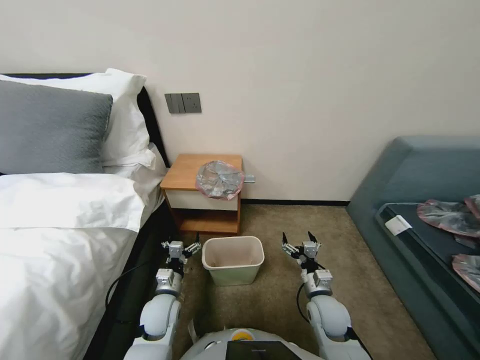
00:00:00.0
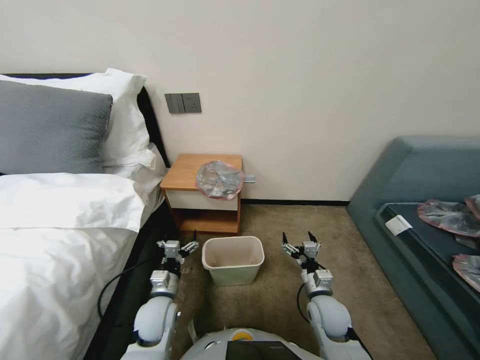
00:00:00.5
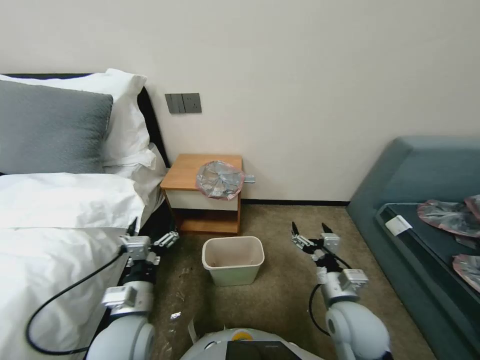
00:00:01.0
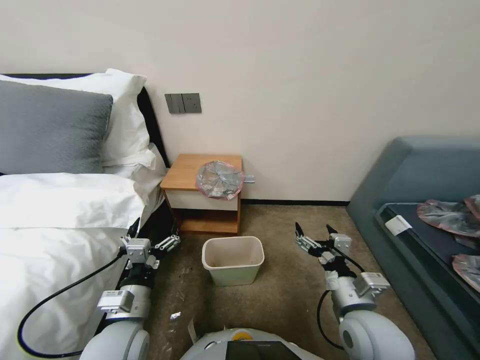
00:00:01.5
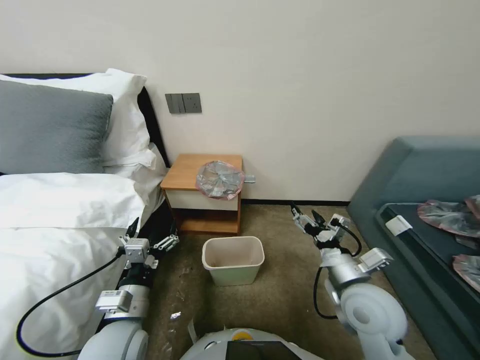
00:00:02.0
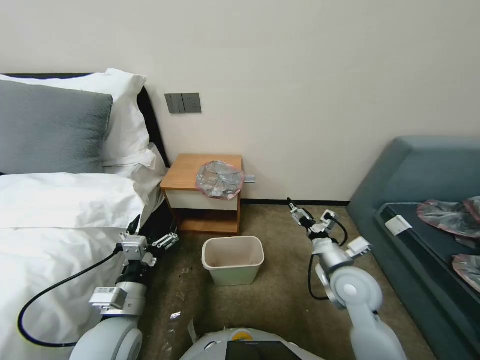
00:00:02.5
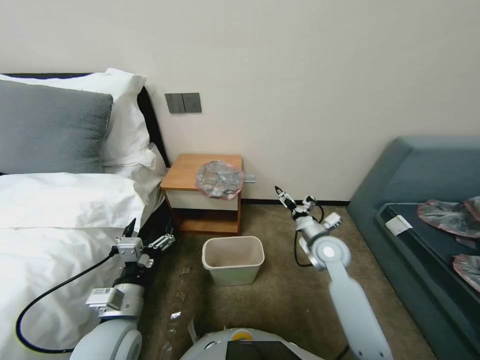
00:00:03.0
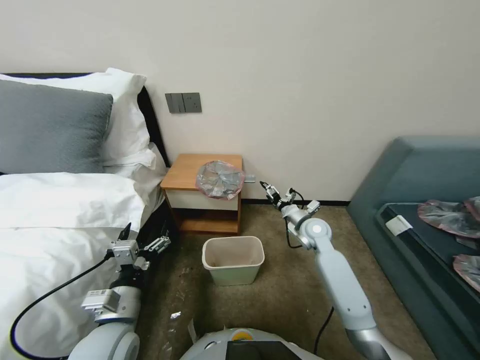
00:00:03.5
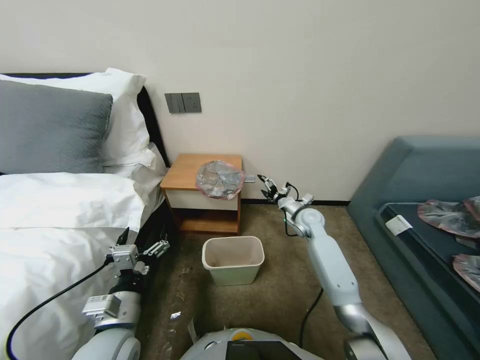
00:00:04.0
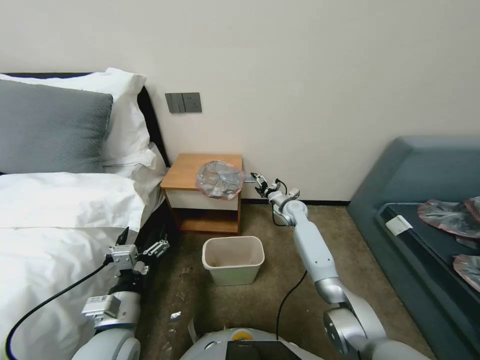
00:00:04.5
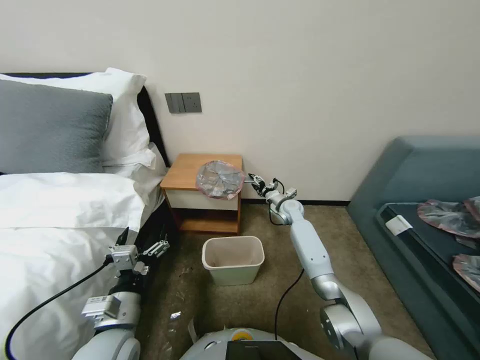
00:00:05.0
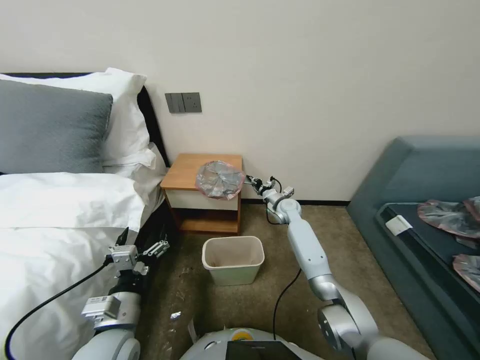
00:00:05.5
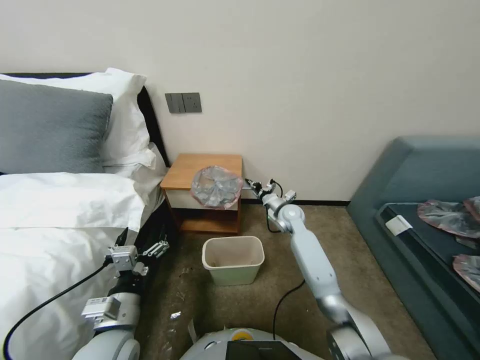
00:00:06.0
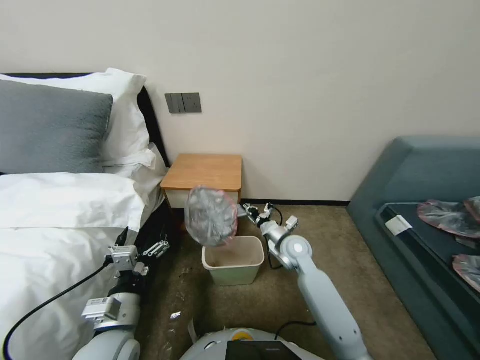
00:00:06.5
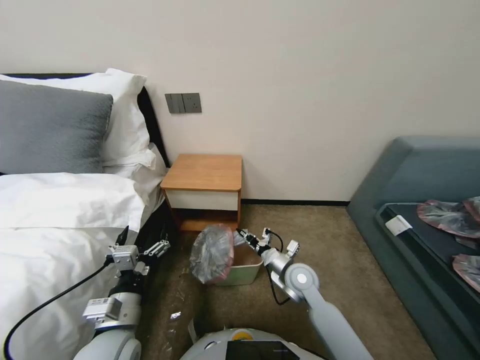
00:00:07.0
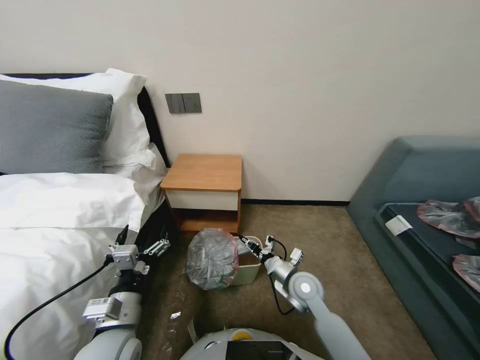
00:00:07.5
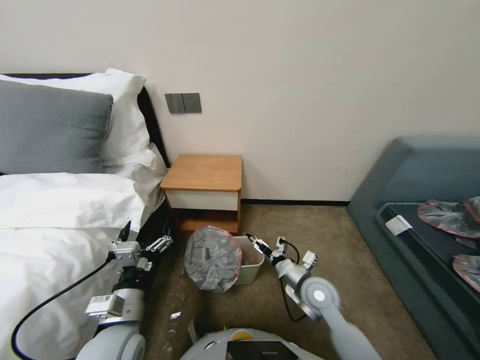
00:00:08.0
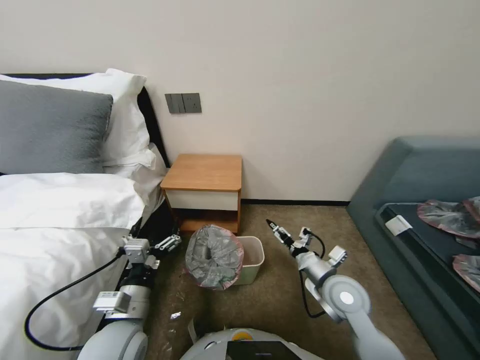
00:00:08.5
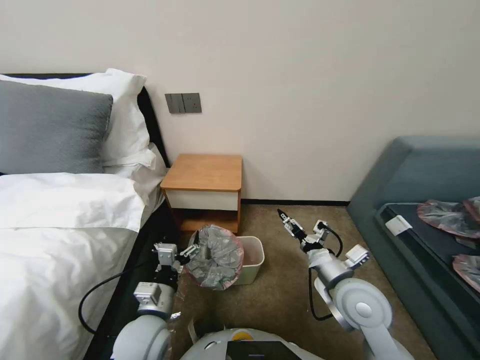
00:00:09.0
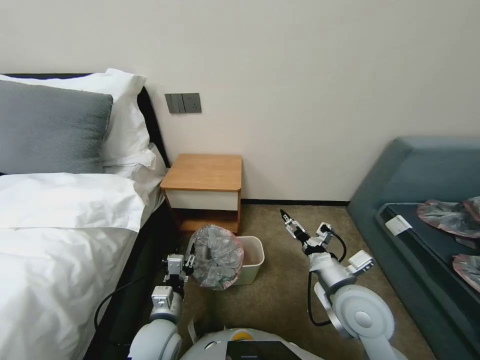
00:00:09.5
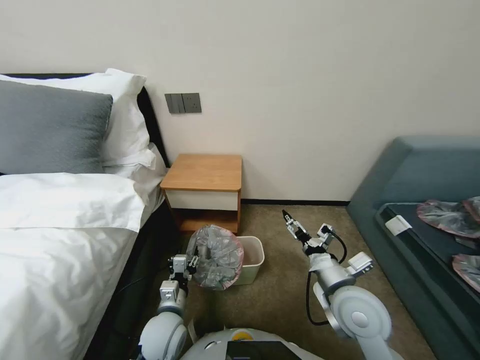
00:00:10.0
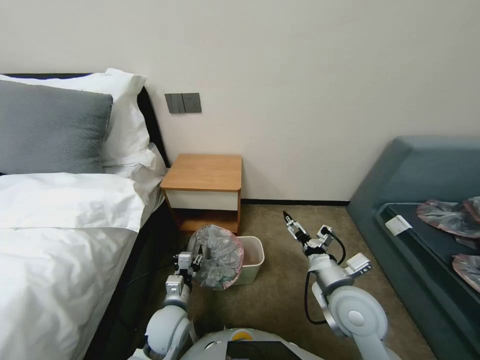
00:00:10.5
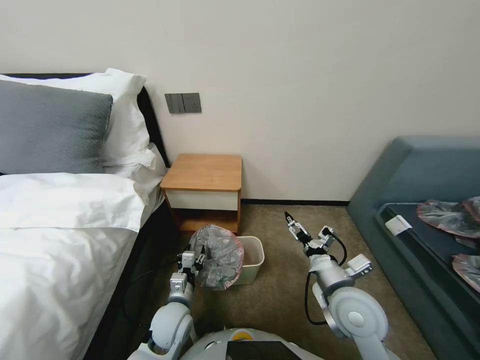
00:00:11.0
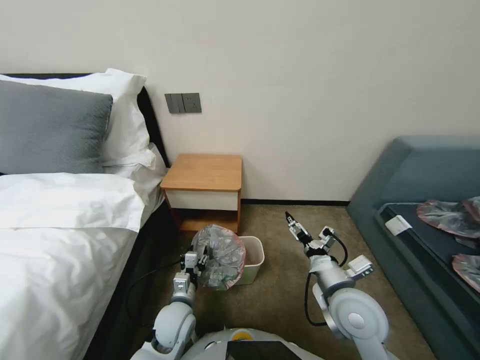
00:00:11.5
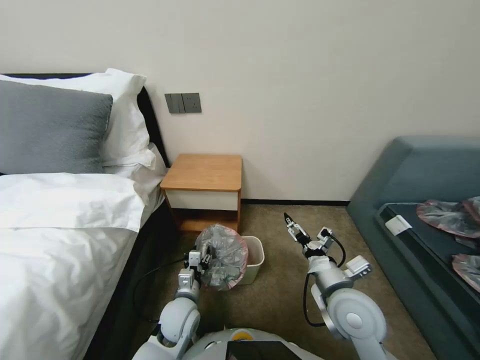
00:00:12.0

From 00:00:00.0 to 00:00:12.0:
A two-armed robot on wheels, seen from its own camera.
Task of the whole recording: Pick up the garbage bag from the table and place it over the trash can.
From 00:00:02.0 to 00:00:04.0: The right gripper shifts approximately 30 cm forward.
From 00:00:04.0 to 00:00:06.0: The right gripper moves to the left, roughly 5 cm, and closes.
From 00:00:06.0 to 00:00:08.0: The right gripper travels backward by about 25 cm, and opens up.
From 00:00:08.0 to 00:00:10.0: The left gripper travels downward and to the right by about 10 cm, and closes, while the right gripper is displaced upward and backward by roughly 10 cm.
From 00:00:10.0 to 00:00:12.0: The left gripper shifts by about 5 cm.

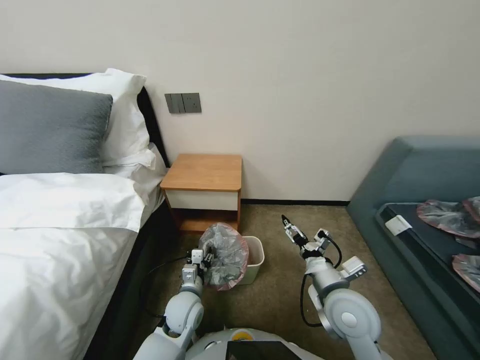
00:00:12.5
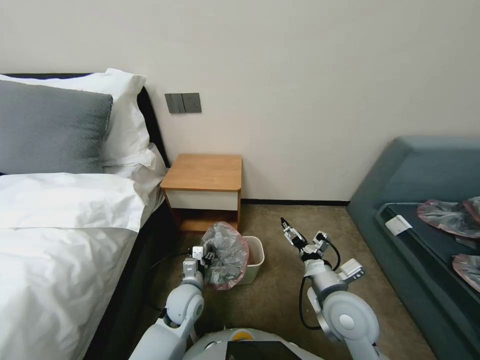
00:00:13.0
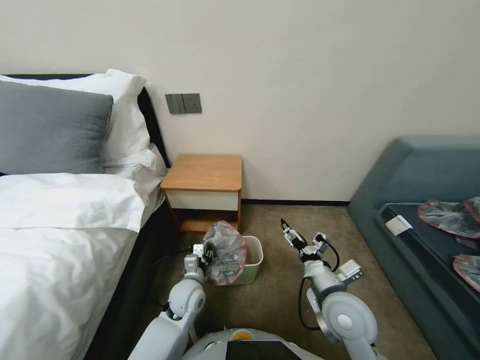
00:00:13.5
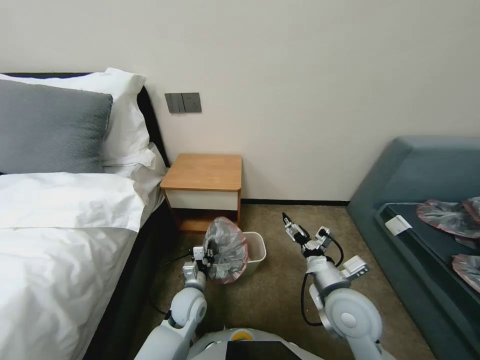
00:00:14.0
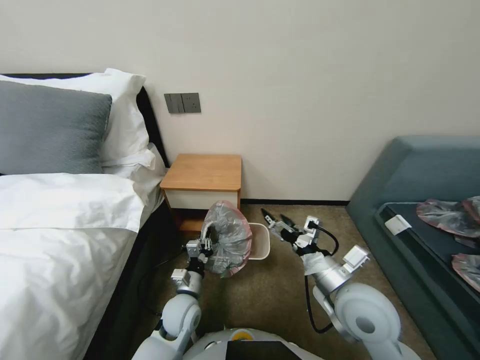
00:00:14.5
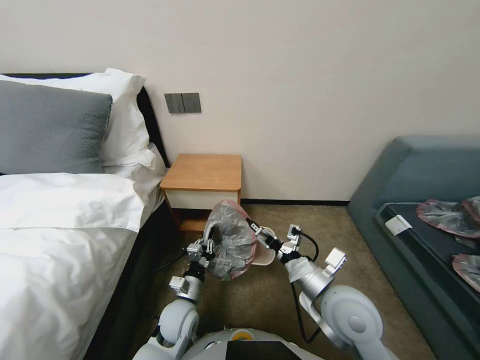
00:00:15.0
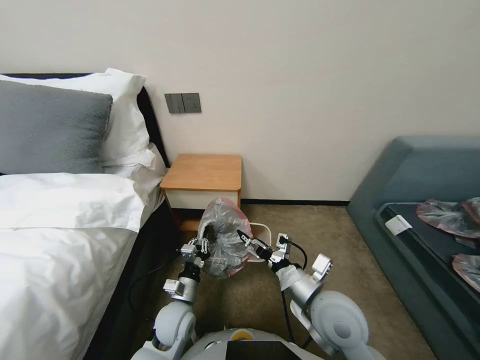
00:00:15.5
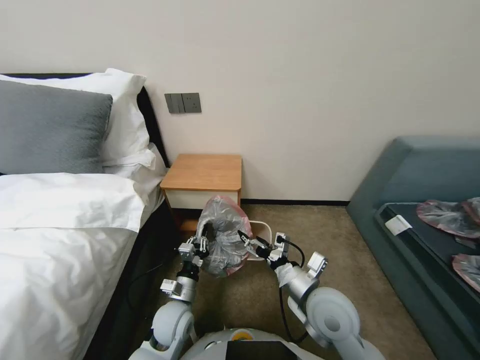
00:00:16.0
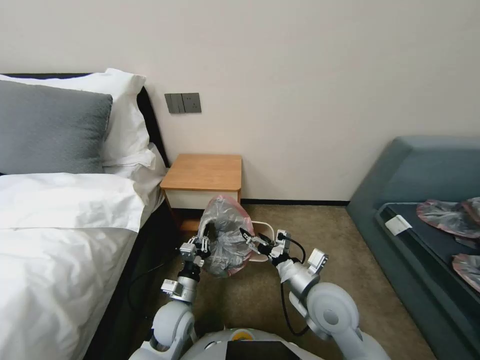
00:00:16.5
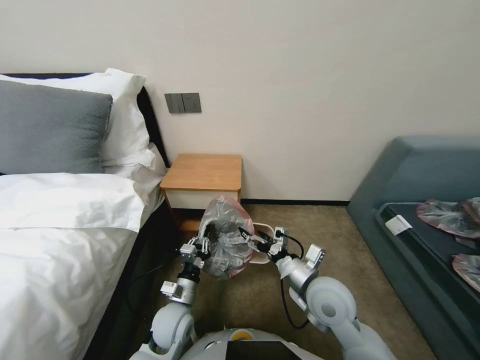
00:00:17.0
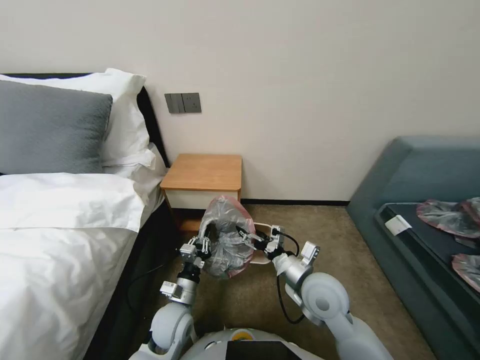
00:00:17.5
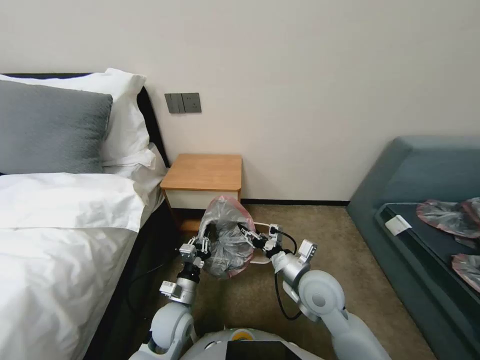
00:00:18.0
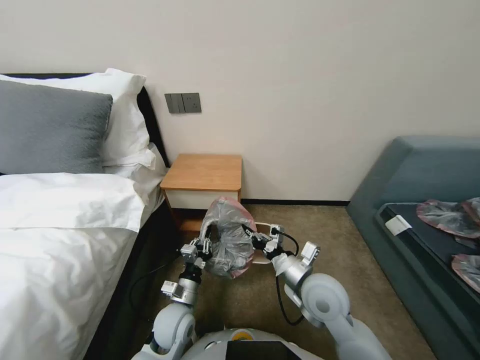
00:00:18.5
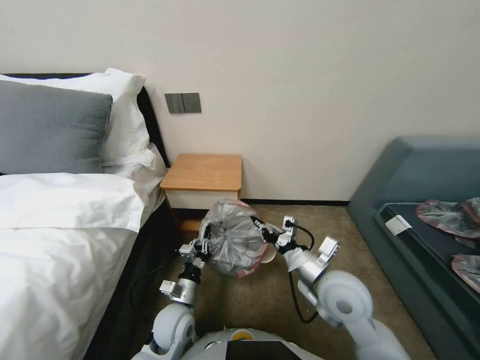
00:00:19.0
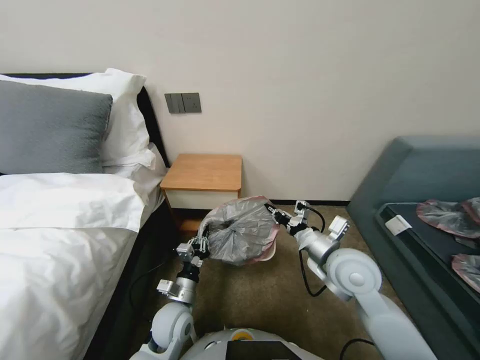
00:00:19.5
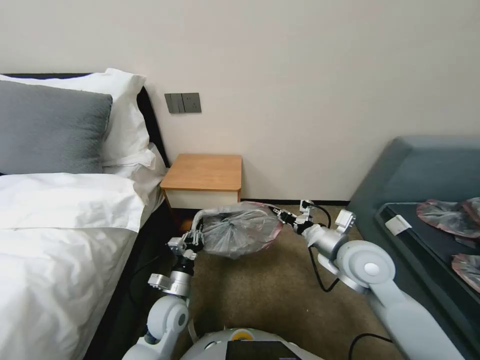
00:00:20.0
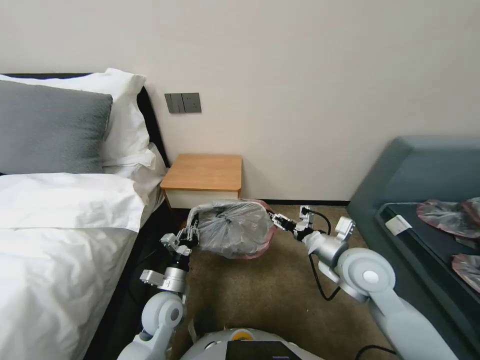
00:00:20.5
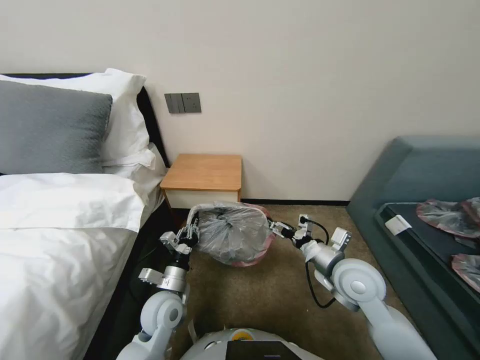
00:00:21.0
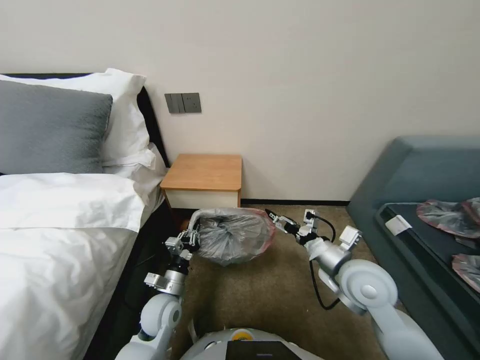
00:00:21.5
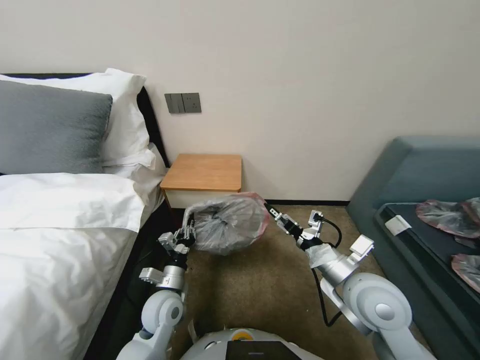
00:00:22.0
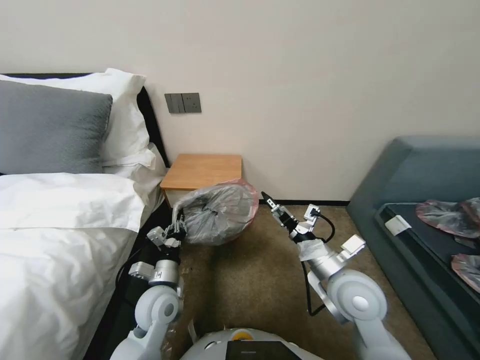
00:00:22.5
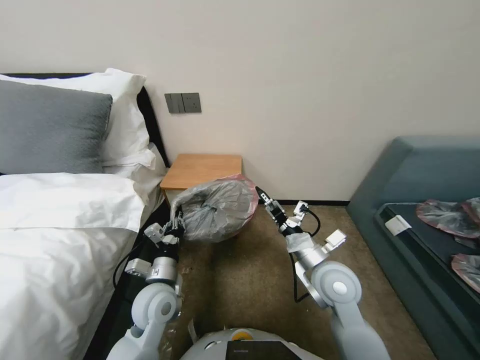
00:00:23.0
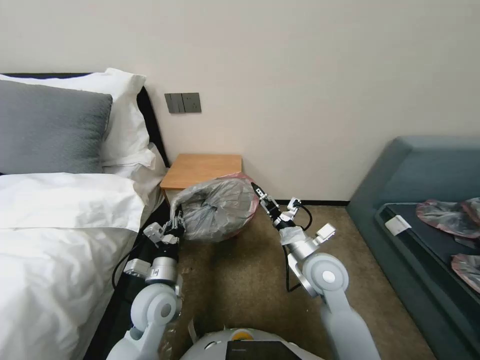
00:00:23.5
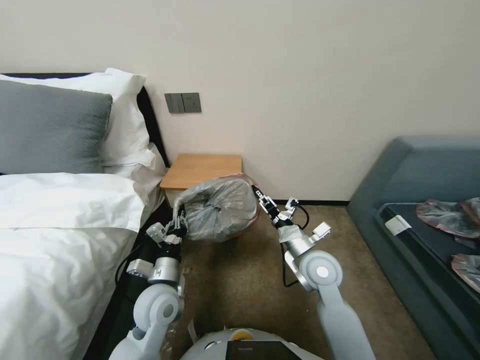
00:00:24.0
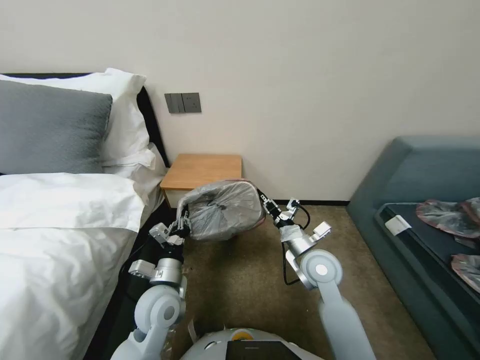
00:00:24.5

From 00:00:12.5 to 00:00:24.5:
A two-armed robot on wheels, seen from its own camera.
Task of the whole recording: Pick up the garbage bag from the table and place it over the trash can.
From 00:00:12.5 to 00:00:14.5: The left gripper closes.
From 00:00:14.5 to 00:00:16.5: The right gripper shifts by about 5 cm.
From 00:00:16.5 to 00:00:18.5: The right gripper closes its fingers.
From 00:00:18.5 to 00:00:20.5: The right gripper heads to the right and upward, covering roughly 10 cm.
From 00:00:20.5 to 00:00:22.5: The right gripper moves backward, some 5 cm, and opens up.
From 00:00:22.5 to 00:00:24.5: The right gripper moves forward, approximately 5 cm, and closes up.

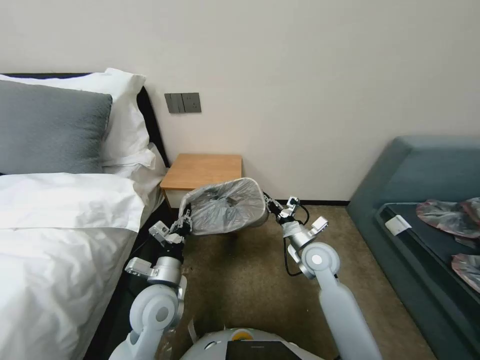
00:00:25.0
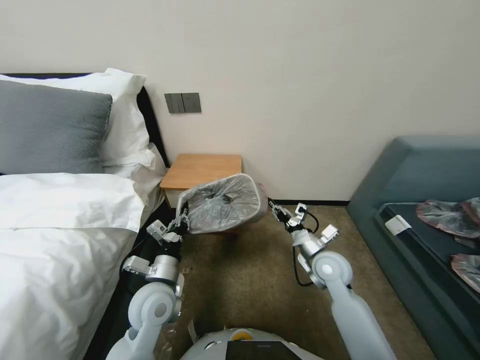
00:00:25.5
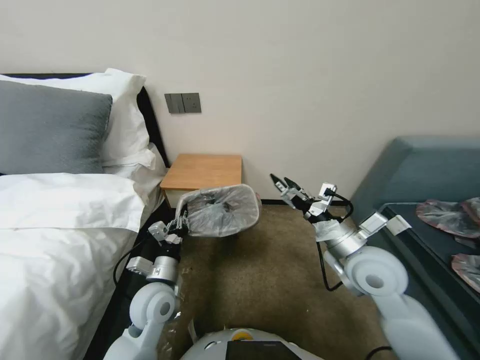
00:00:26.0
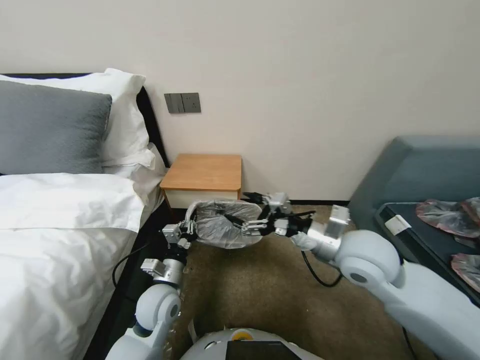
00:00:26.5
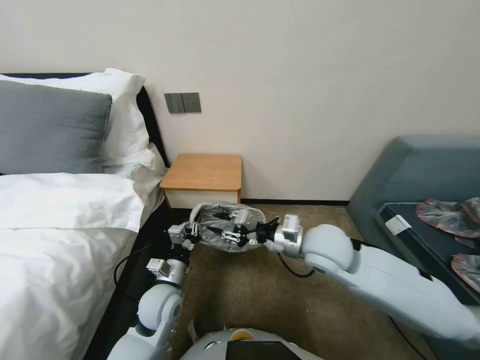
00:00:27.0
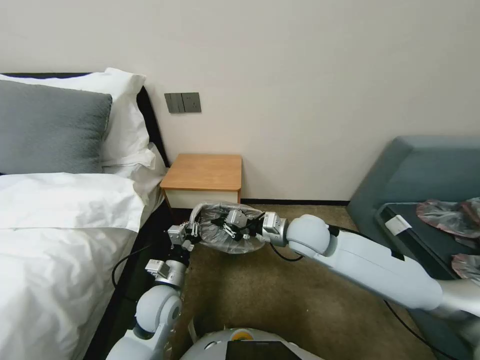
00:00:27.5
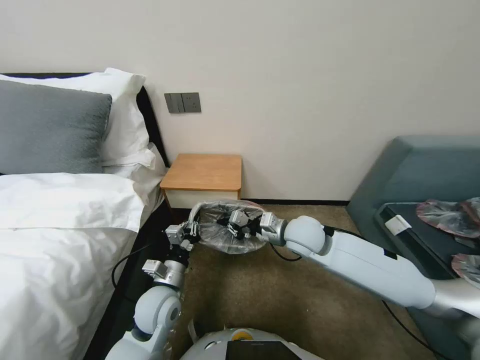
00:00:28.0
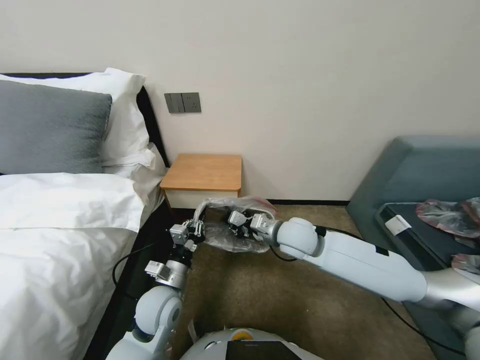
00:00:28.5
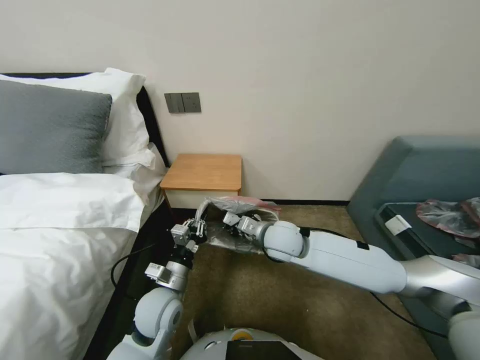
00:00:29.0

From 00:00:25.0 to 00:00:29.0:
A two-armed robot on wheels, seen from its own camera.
Task of the whole recording: Pick up the garbage bag from the table and place it over the trash can.
From 00:00:25.0 to 00:00:27.0: The right gripper goes about 10 cm upward, and opens. Meanwhile the left gripper ends up some 5 cm from where it was.
From 00:00:27.0 to 00:00:29.0: The right gripper goes approximately 10 cm to the left, downward and forward, and closes.
